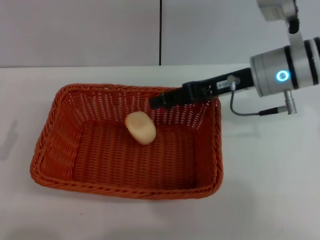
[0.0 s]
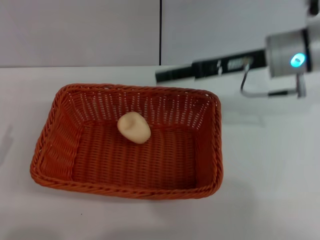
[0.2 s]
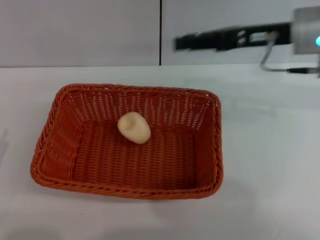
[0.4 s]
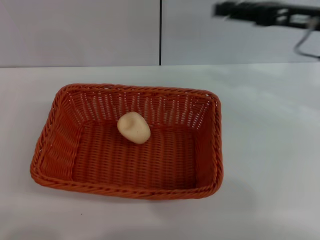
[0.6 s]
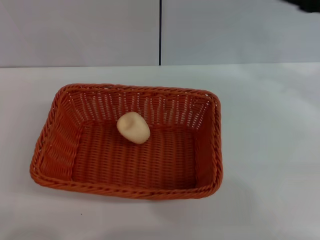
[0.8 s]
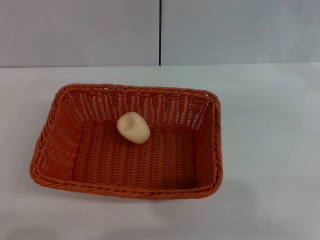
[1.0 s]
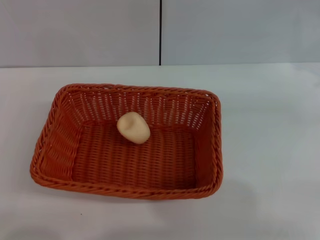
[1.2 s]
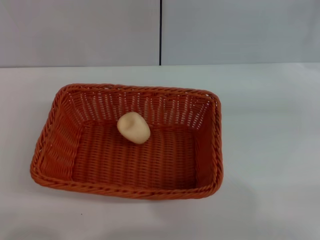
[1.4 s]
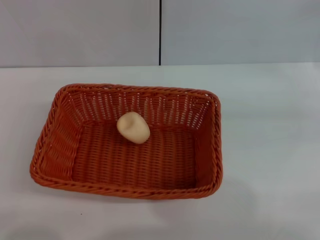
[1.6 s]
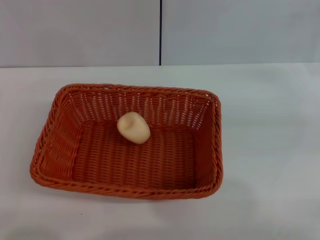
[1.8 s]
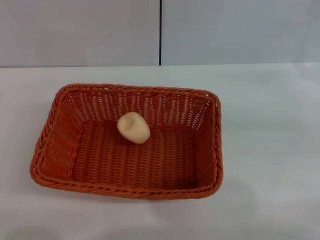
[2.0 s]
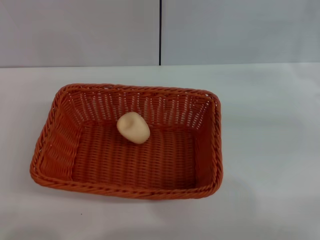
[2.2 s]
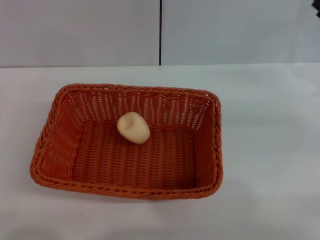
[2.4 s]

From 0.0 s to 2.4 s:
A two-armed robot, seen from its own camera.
From 0.0 s to 1.2 s: The right gripper travels to the right by roughly 20 cm, and opens up.

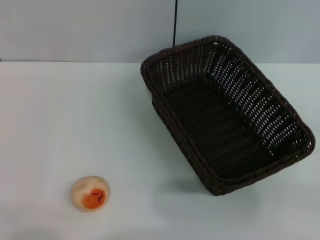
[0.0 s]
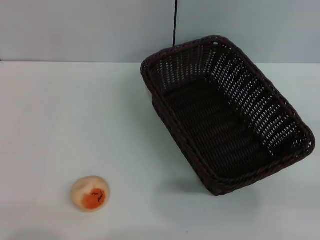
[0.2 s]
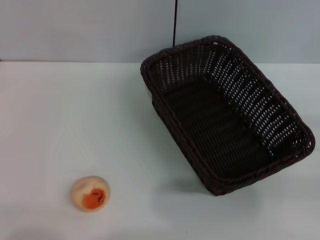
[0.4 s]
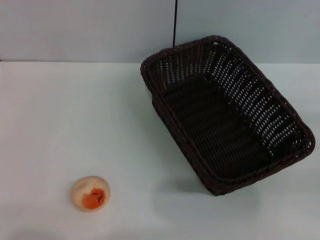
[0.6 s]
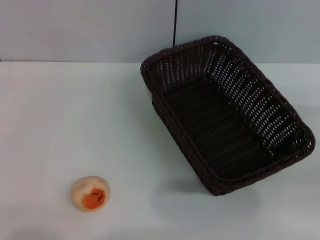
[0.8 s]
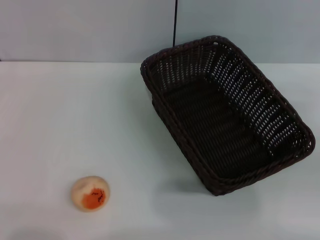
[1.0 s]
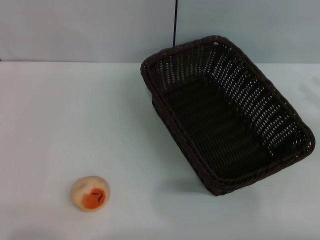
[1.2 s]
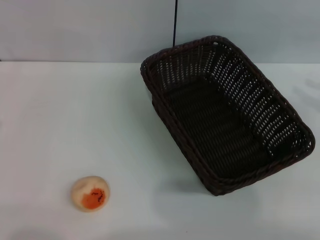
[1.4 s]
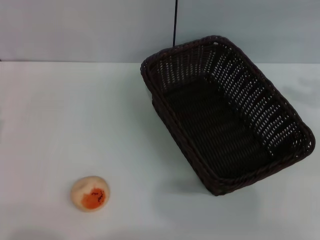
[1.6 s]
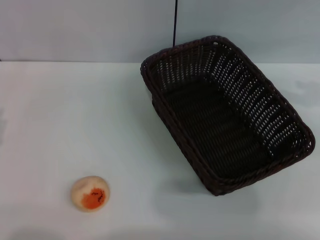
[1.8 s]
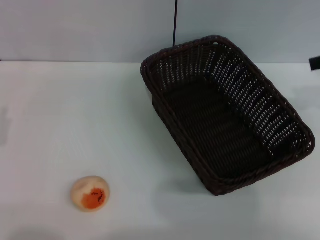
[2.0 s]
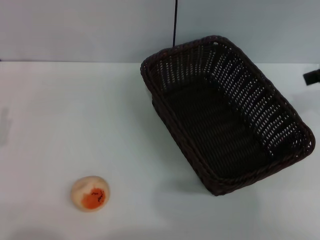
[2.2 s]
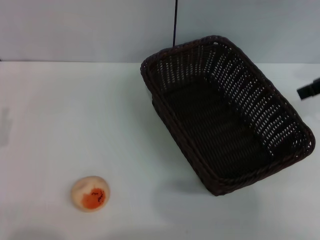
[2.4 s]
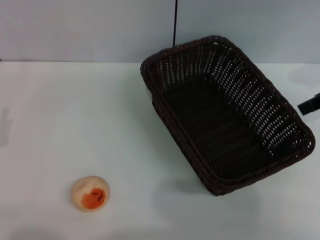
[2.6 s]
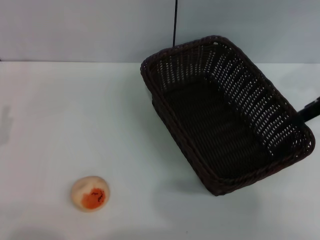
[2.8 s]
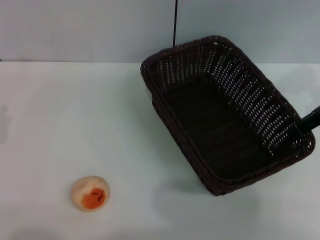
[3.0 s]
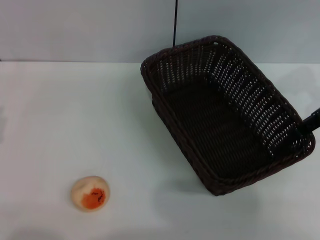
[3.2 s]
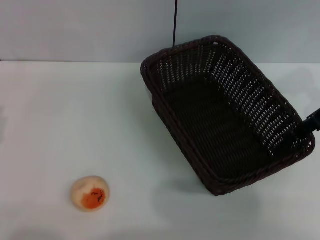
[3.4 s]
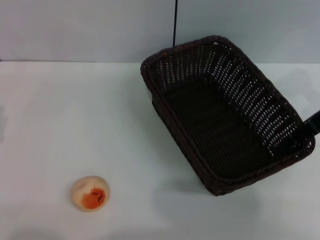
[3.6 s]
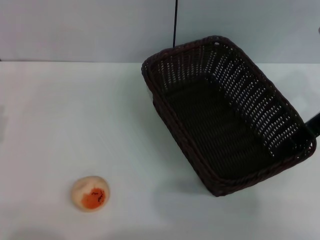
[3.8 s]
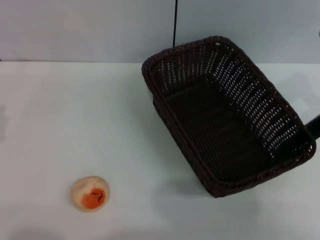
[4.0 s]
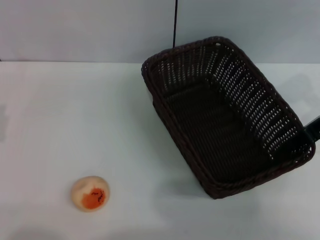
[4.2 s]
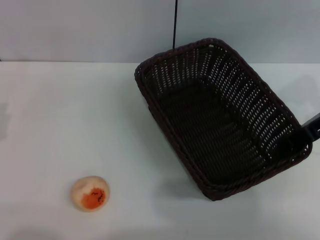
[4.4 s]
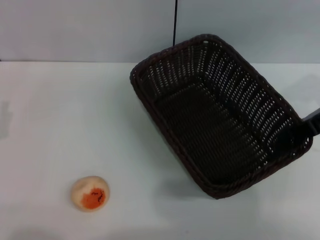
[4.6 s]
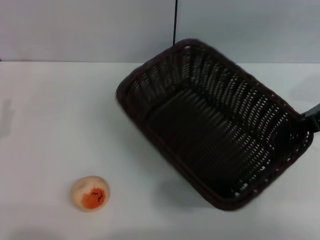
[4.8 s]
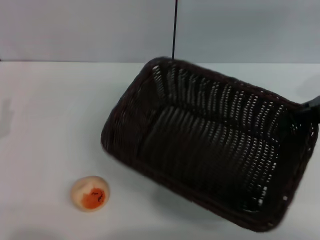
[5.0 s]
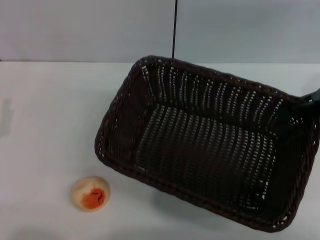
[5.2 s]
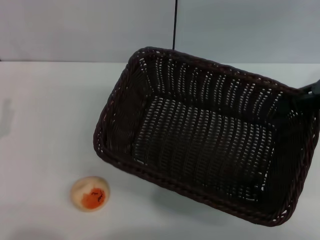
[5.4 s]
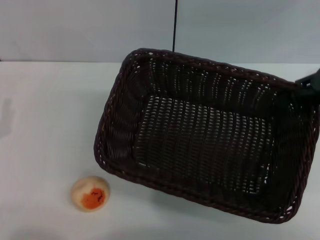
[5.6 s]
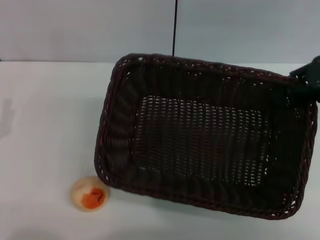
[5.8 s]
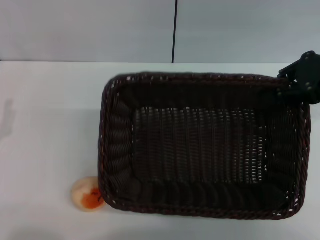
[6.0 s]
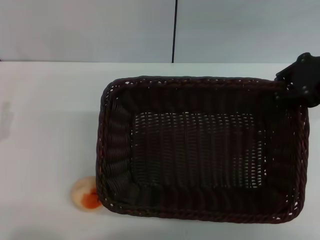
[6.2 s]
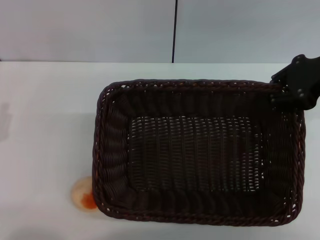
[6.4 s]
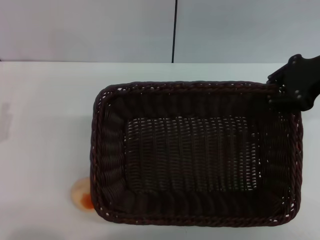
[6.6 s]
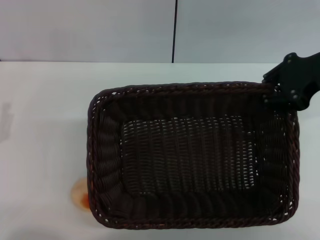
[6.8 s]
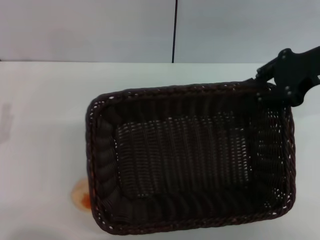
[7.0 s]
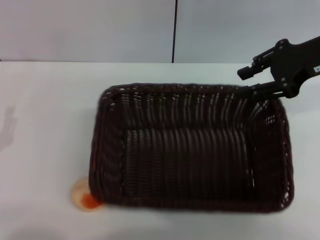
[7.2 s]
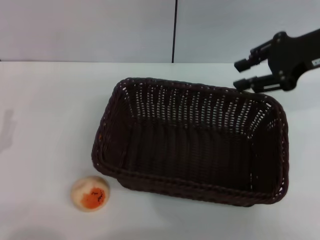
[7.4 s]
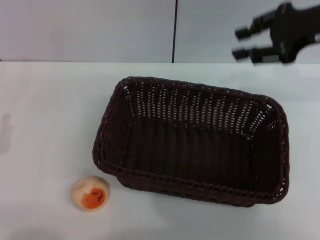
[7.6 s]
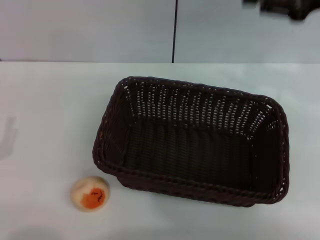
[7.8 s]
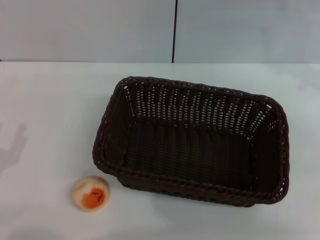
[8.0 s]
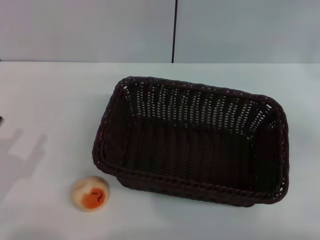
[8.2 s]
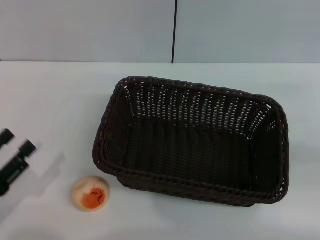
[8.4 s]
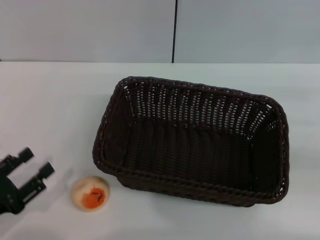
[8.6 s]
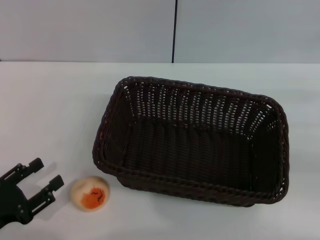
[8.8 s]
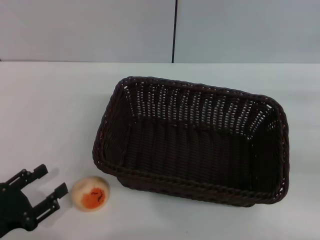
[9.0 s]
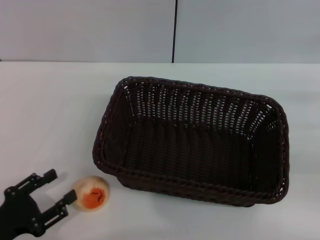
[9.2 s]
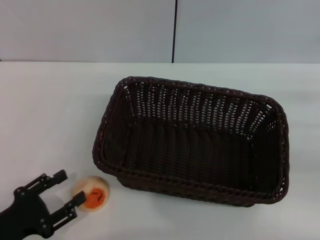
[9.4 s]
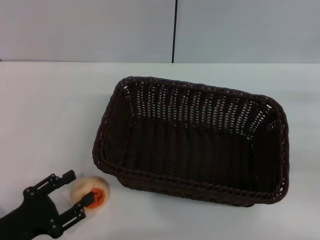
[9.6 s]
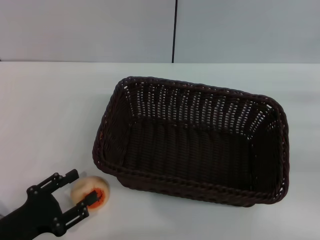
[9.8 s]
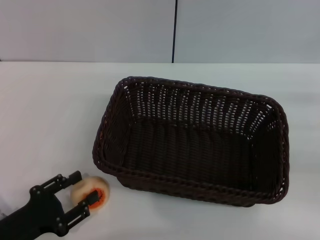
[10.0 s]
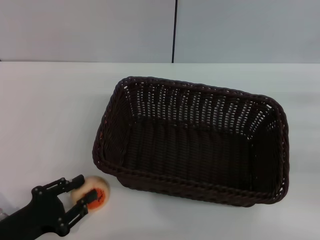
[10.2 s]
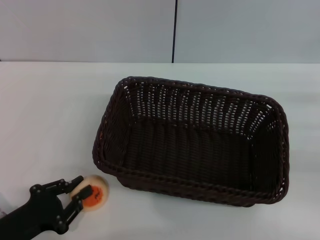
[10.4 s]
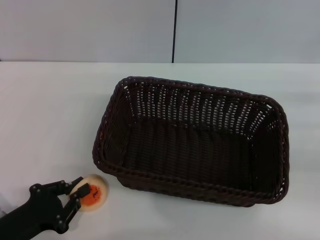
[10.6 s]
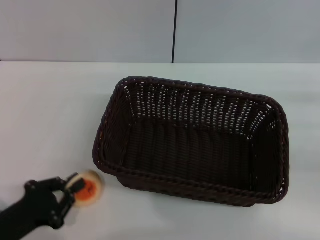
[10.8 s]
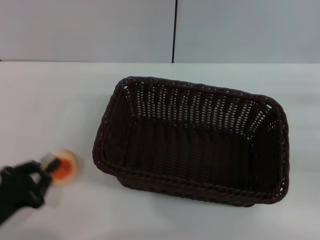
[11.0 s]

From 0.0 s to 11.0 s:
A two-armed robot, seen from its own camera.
Step, from 0.0 s to 7.4 s: Move the basket to the center of view with the right gripper.
From 0.0 s to 1.6 s: The right gripper goes some 20 cm upward and forward.
From 3.2 s to 4.8 s: The right gripper closes up.
From 4.8 s to 6.2 s: The right gripper changes place by roughly 5 cm.
From 6.2 s to 7.8 s: The right gripper opens its fingers.
From 7.8 s to 9.4 s: The right gripper travels downward, to the right and backward by some 20 cm.
From 9.4 s to 11.0 s: The left gripper closes.

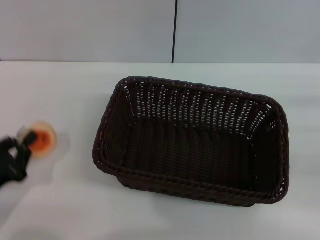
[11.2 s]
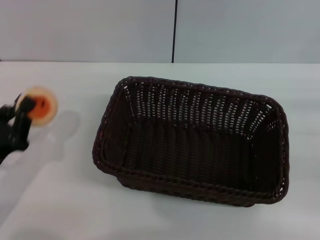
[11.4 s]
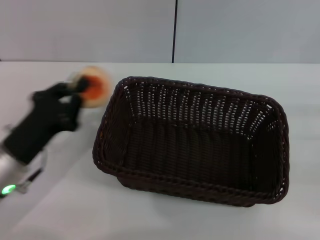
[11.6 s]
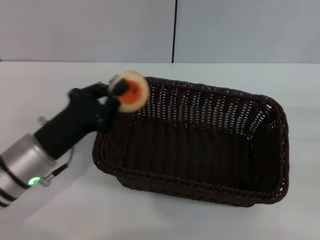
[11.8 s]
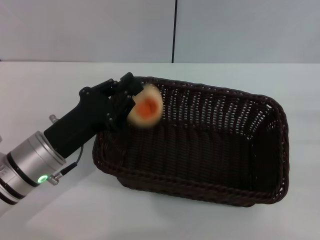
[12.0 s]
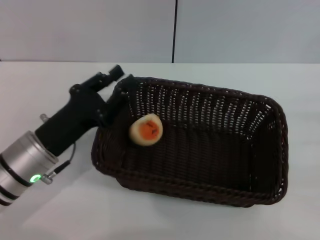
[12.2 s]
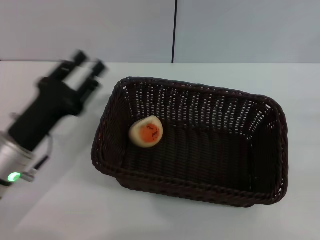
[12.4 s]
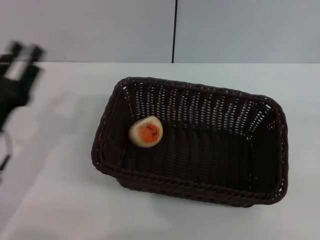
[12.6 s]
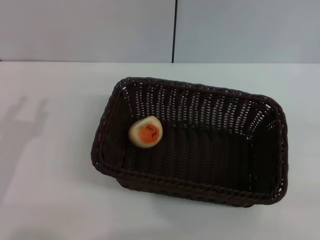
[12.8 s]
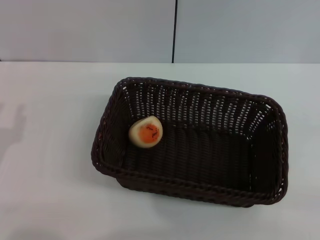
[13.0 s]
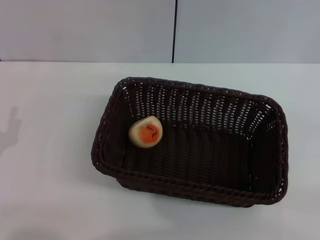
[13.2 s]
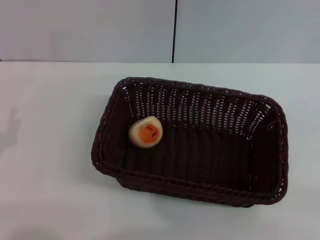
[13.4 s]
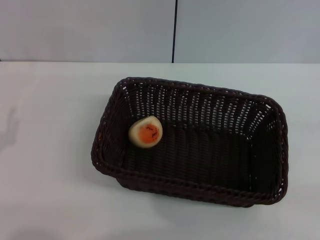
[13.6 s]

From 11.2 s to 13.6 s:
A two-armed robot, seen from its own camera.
Step, from 11.4 s to 12.2 s: Place the egg yolk pastry into the basket with the left gripper.
From 11.2 s to 12.4 s: The left gripper moves forward and to the right, some 10 cm.
From 12.4 s to 13.6 s: The left gripper heads to the left and backward, covering some 10 cm, and opens its fingers.
